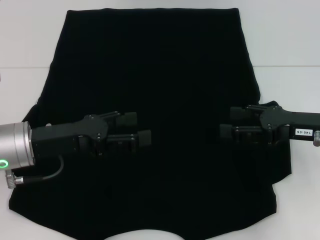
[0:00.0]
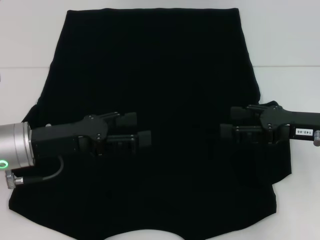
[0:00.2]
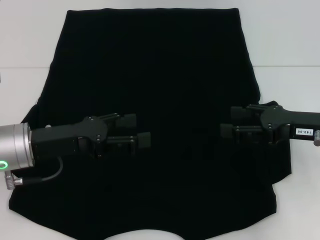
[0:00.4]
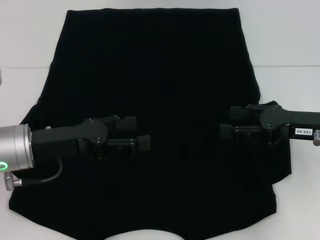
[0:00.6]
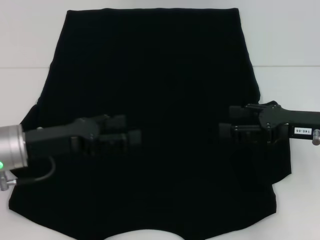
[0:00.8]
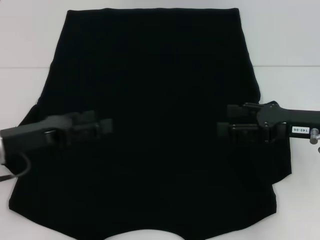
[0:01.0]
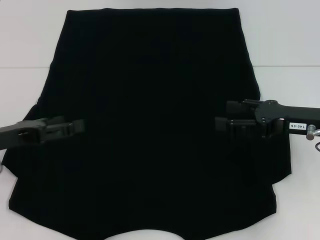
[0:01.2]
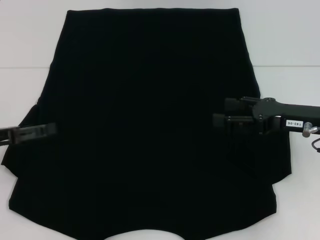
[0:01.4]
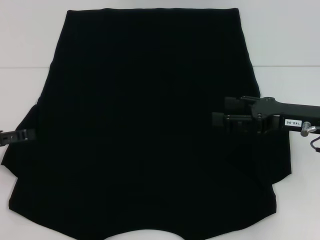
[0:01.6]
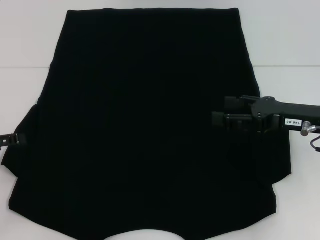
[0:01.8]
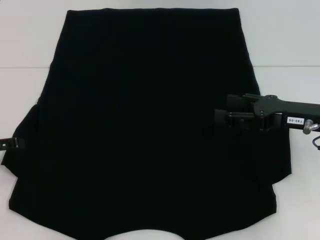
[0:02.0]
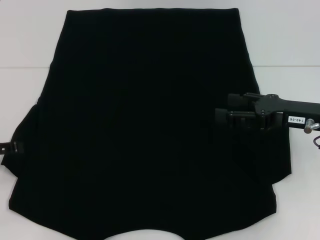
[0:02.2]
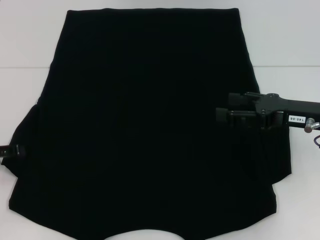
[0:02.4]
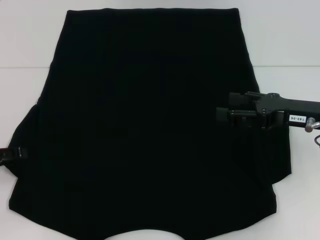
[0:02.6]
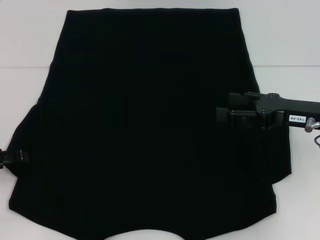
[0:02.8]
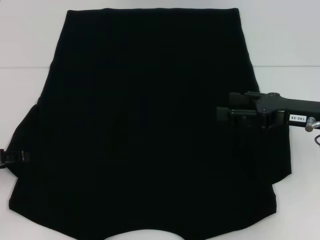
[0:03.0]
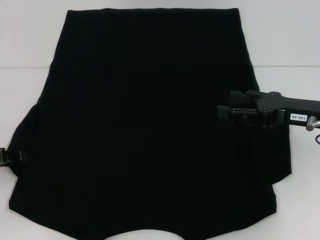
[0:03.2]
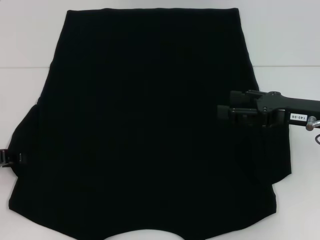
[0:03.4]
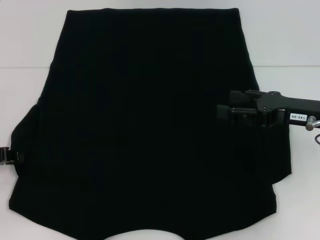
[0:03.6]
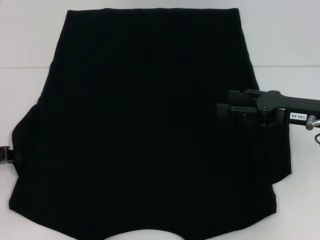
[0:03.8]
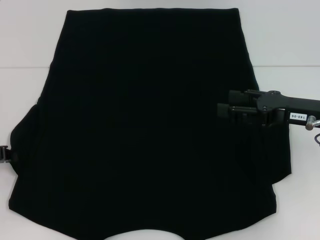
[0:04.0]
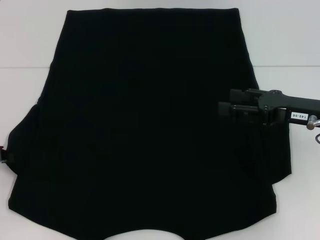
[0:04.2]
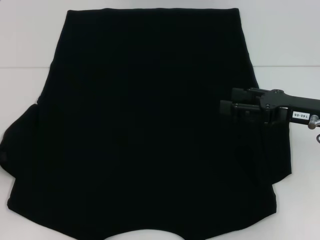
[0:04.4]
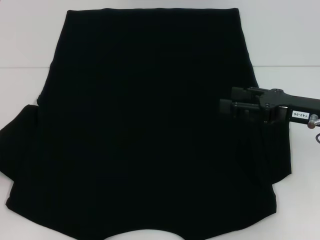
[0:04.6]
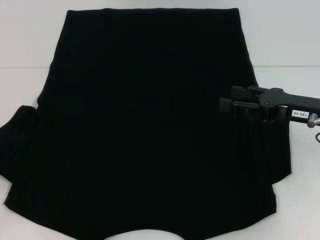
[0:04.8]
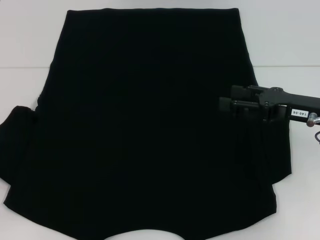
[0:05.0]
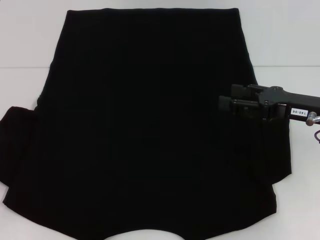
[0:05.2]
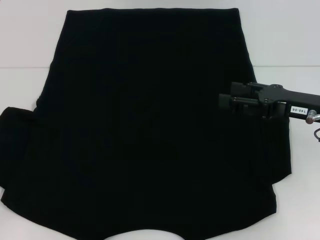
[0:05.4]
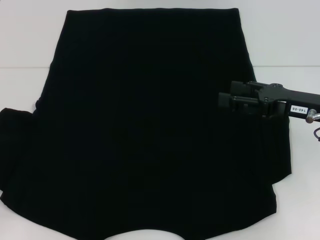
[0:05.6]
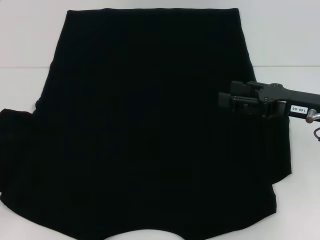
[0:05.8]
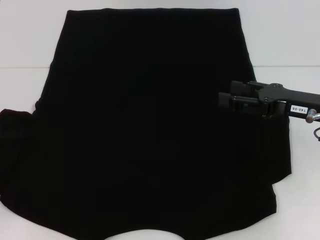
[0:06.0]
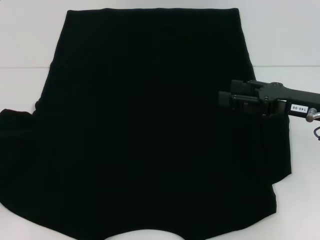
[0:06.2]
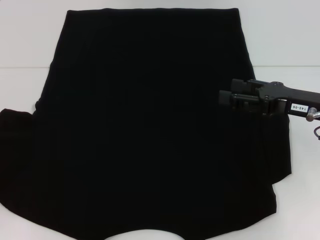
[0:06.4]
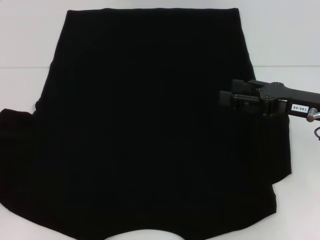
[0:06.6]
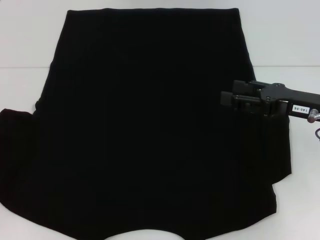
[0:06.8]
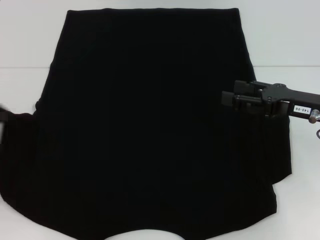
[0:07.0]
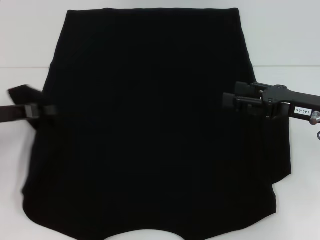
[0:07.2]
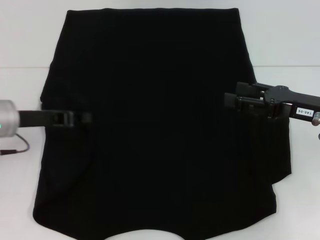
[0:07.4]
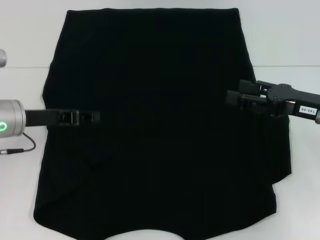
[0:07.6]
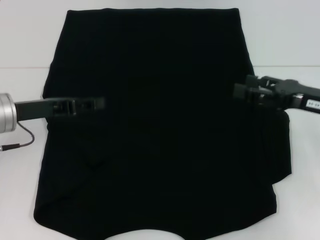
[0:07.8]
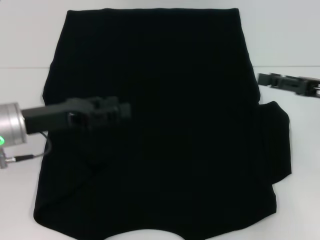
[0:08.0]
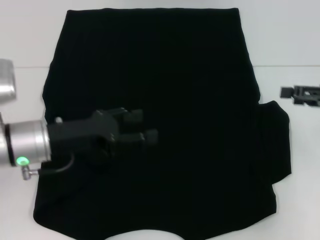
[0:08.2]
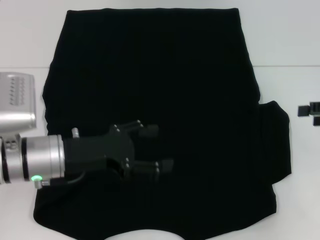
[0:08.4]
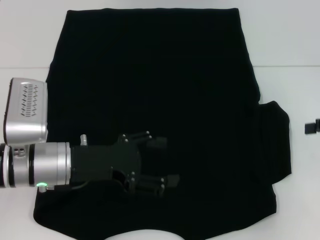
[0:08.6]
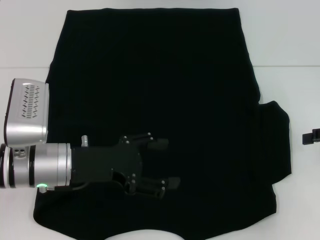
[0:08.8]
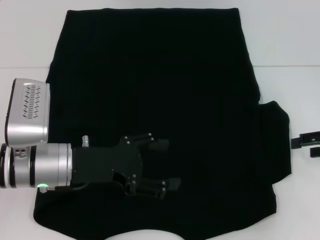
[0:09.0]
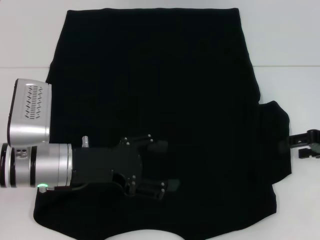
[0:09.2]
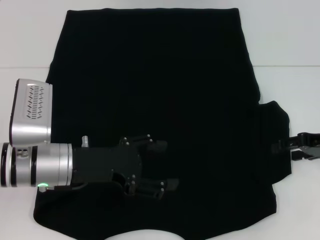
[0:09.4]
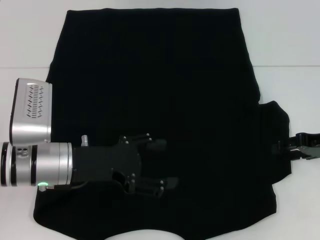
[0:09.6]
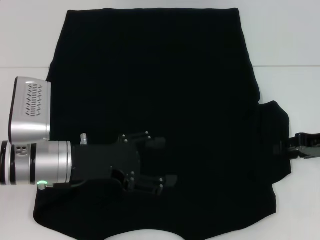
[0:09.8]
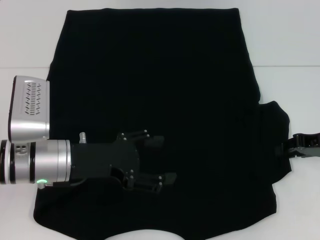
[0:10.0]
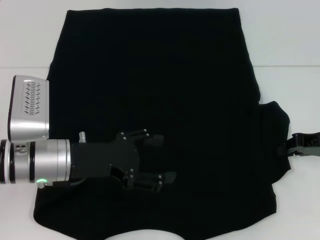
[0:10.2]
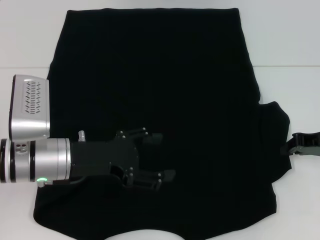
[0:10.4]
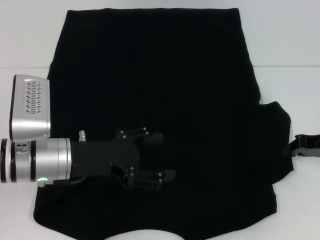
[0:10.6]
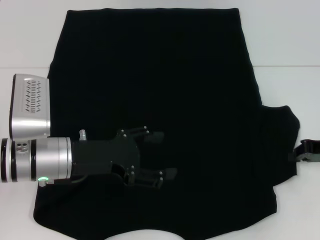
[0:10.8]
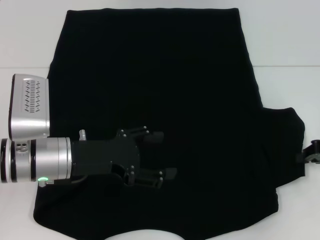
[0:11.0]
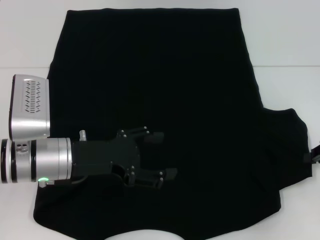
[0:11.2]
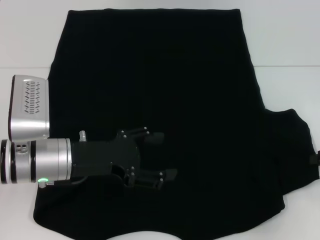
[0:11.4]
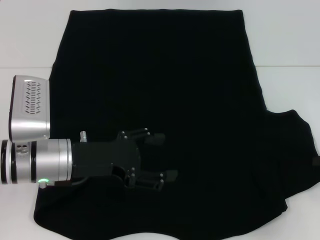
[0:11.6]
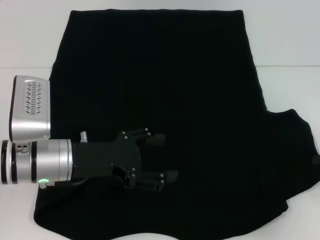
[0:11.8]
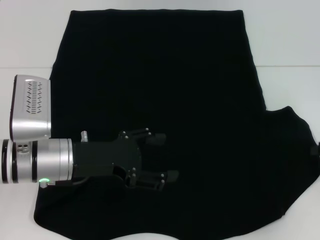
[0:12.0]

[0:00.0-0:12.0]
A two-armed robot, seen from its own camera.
Step, 0:00.0 to 0:08.0: Fold the bottom left sleeve with your left hand.
0:00.0 to 0:01.6: The left gripper travels to the left by some 15 cm.
0:01.6 to 0:03.0: The grippers stay close to where they were, moving slightly.
0:03.0 to 0:04.4: The left gripper closes up.
0:04.4 to 0:06.0: The grippers move only a little.
0:06.0 to 0:07.6: The left gripper heads to the right and forward, covering about 15 cm.
0:07.6 to 0:09.0: The left gripper shifts about 10 cm to the right and backward, and opens its fingers; the right gripper travels to the right by roughly 10 cm.
0:09.0 to 0:10.4: The right gripper moves approximately 5 cm, and closes up.
0:10.4 to 0:12.0: The right gripper is displaced to the right by roughly 5 cm.

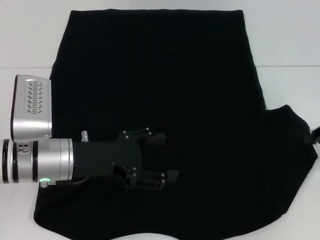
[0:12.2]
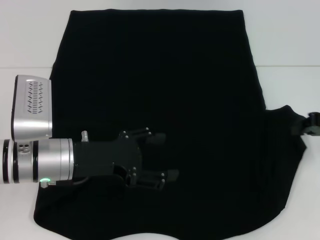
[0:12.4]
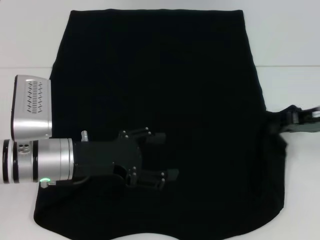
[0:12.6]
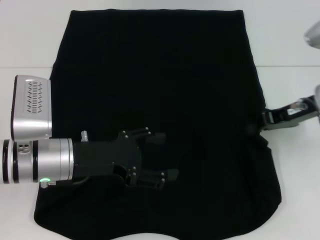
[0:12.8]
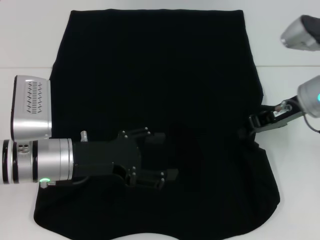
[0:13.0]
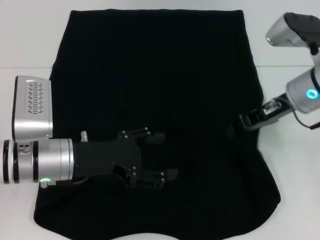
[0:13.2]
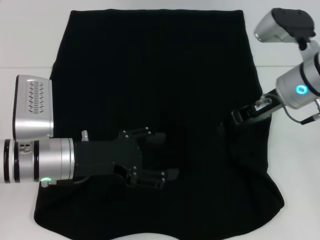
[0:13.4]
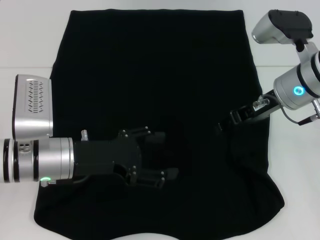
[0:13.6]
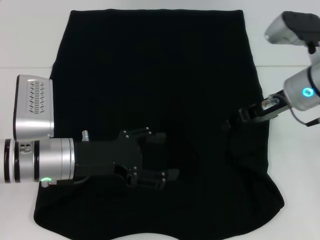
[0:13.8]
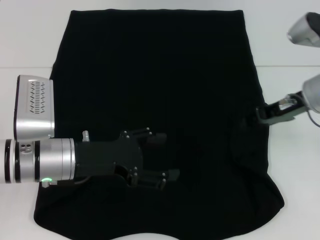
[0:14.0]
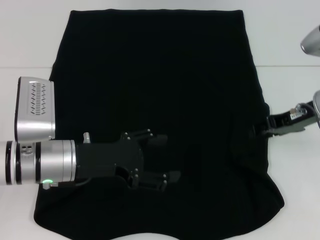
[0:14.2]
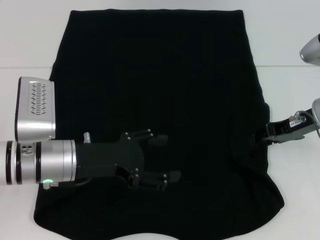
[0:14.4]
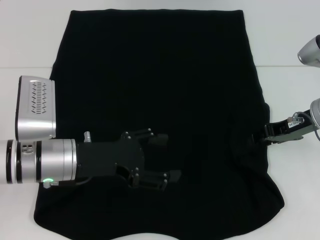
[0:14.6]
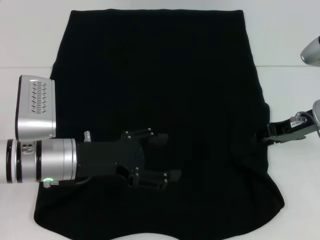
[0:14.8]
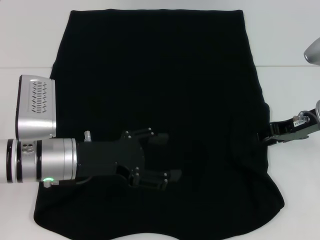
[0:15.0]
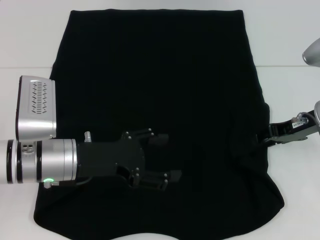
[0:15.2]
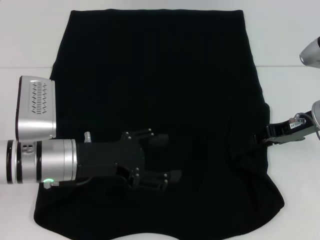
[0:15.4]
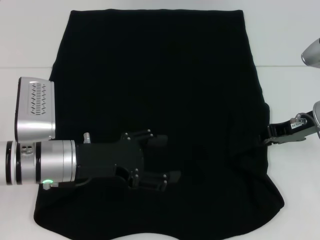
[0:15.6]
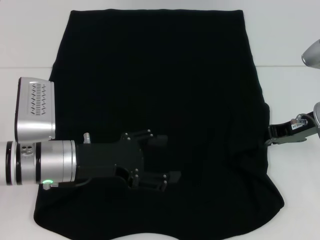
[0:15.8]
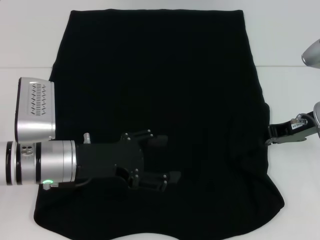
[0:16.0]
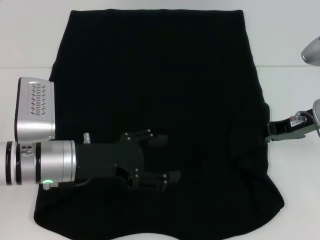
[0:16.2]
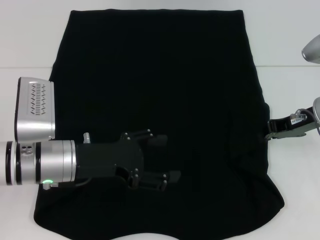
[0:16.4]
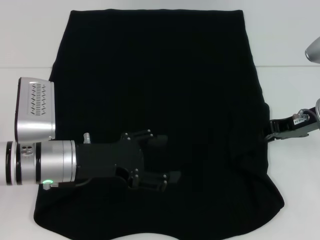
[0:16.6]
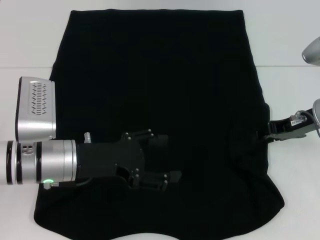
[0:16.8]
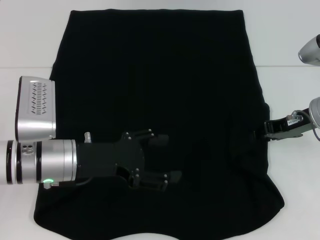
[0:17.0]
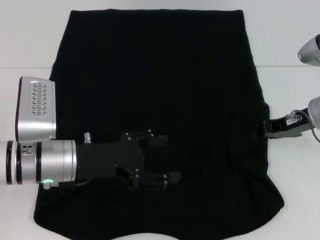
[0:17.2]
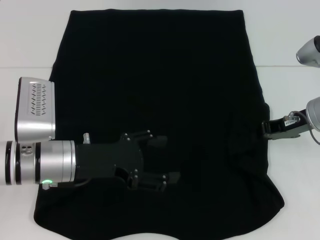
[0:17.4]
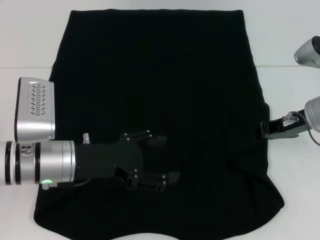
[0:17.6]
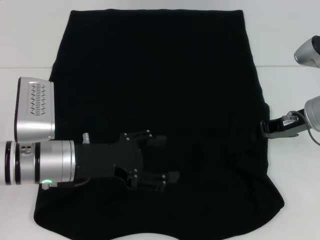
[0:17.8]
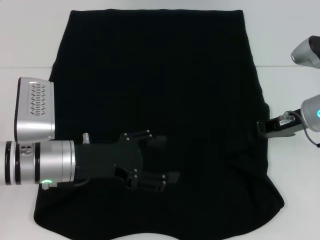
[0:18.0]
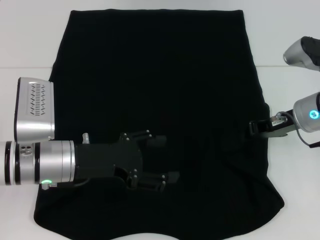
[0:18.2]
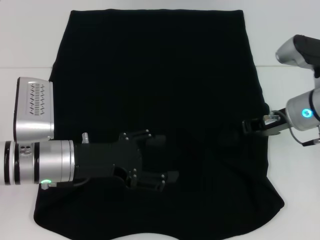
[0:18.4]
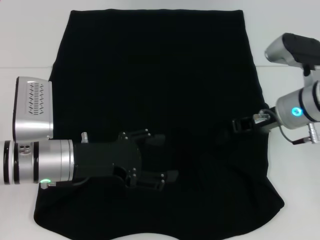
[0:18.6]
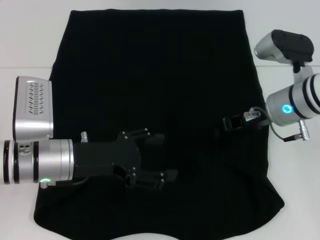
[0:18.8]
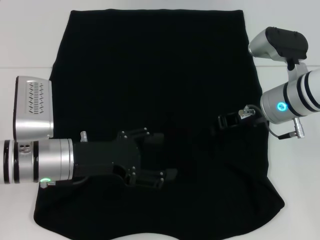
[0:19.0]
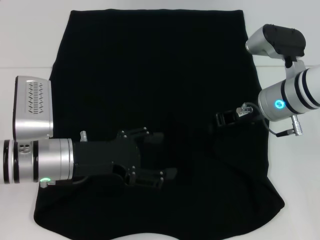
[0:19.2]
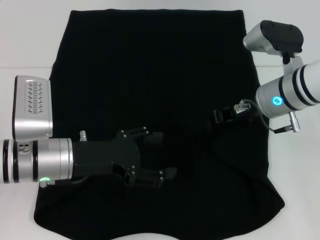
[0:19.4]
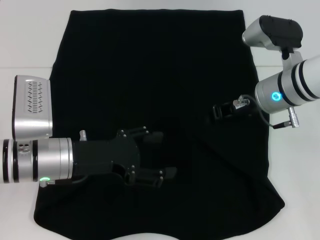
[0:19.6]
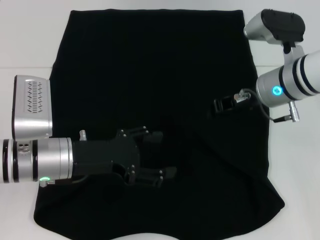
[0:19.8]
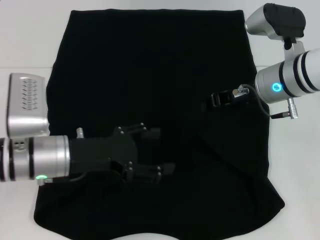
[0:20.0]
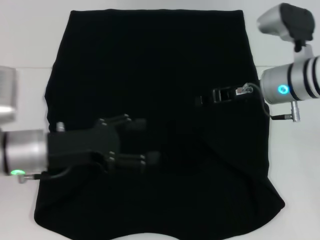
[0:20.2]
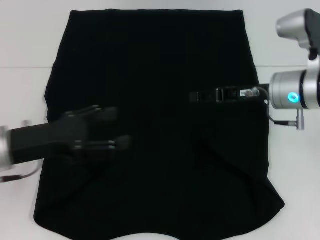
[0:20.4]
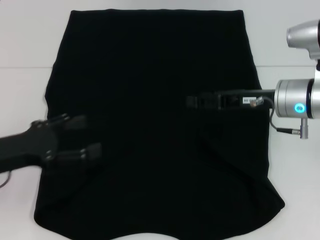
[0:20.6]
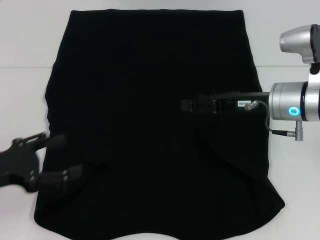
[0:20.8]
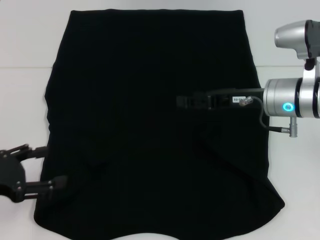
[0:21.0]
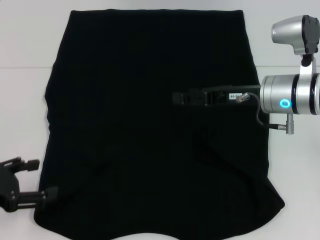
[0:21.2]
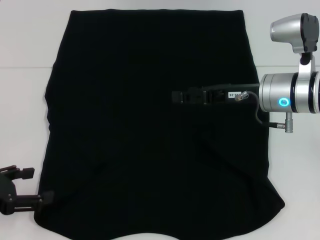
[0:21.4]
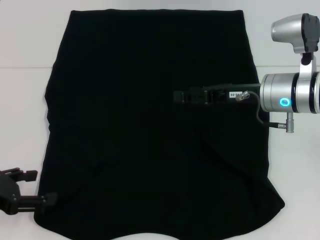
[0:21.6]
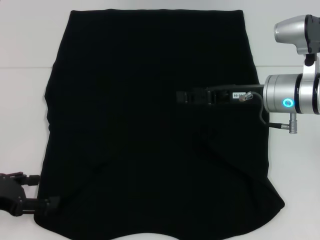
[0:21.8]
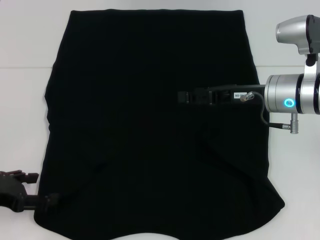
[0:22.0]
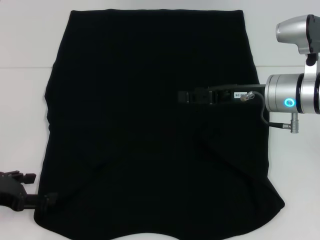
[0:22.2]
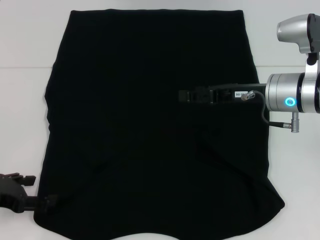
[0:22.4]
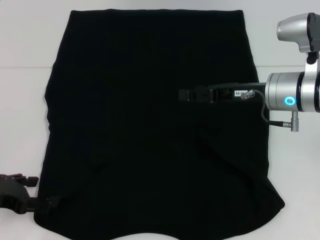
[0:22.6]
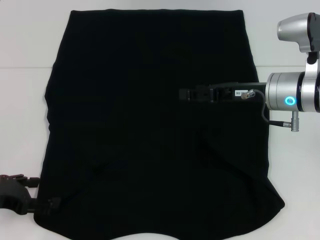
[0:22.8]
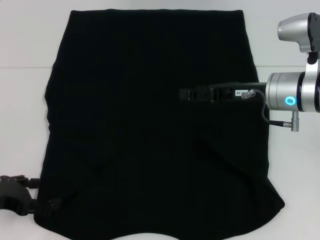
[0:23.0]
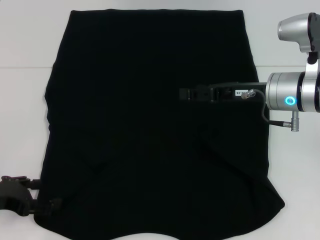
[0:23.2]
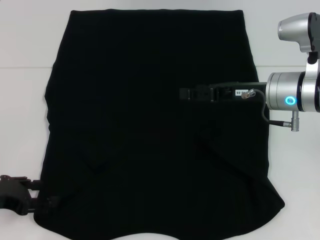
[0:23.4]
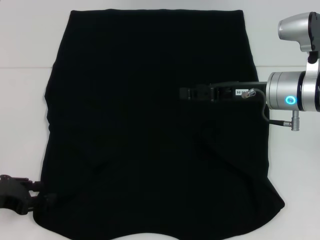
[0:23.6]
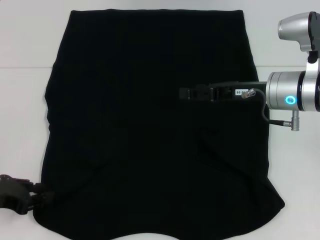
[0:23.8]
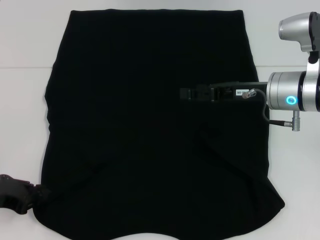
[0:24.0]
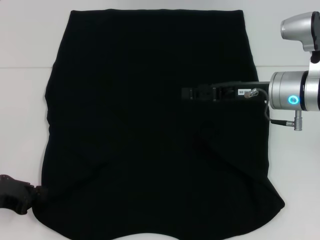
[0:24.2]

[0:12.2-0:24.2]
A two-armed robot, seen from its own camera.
0:12.2 to 0:13.8: The right gripper travels to the left and forward by about 15 cm, and opens.
0:13.8 to 0:15.2: The right gripper shifts approximately 5 cm to the right.
0:15.2 to 0:16.6: The two grippers keep their place.
0:16.6 to 0:18.2: The grippers make only small movements.
0:18.2 to 0:19.8: The right gripper shifts approximately 5 cm to the left.
0:19.8 to 0:21.2: The right gripper opens. The left gripper heads to the left and backward, covering some 15 cm.
0:21.2 to 0:22.6: The grippers move only a little.
0:22.6 to 0:24.2: The left gripper closes up.
